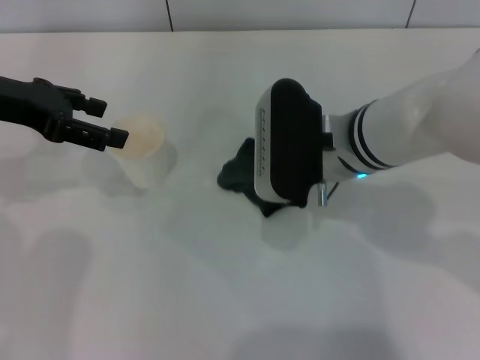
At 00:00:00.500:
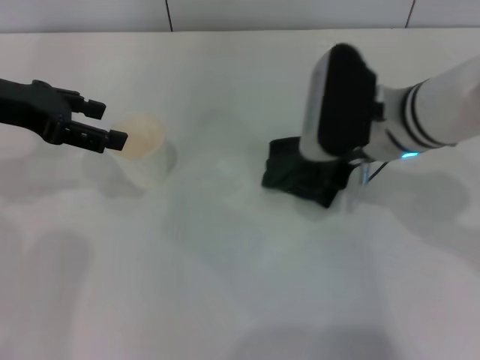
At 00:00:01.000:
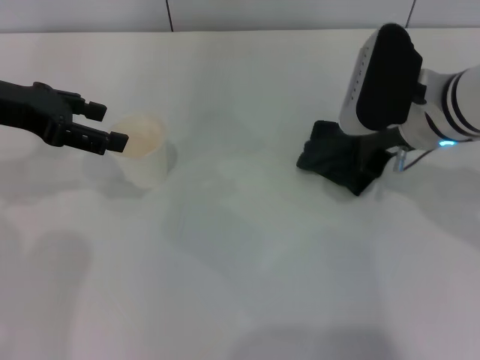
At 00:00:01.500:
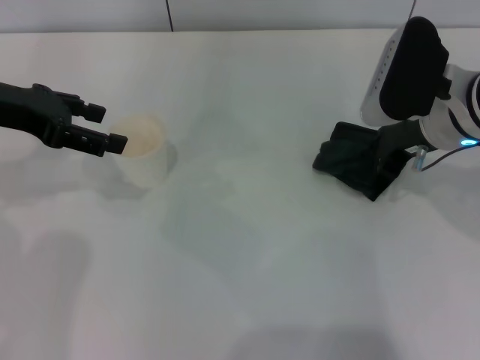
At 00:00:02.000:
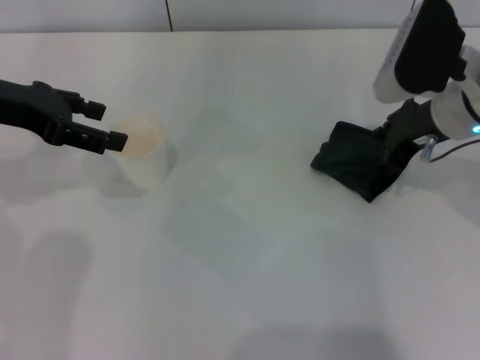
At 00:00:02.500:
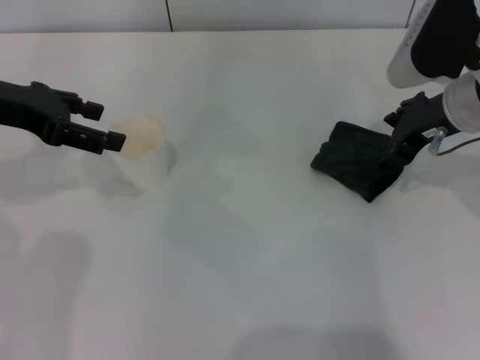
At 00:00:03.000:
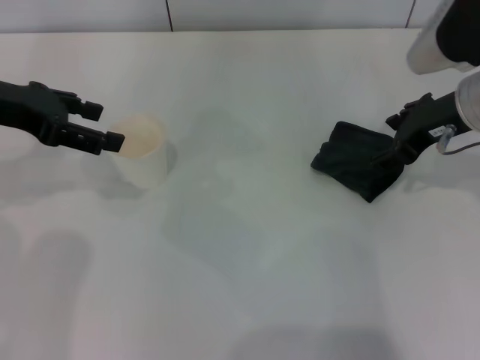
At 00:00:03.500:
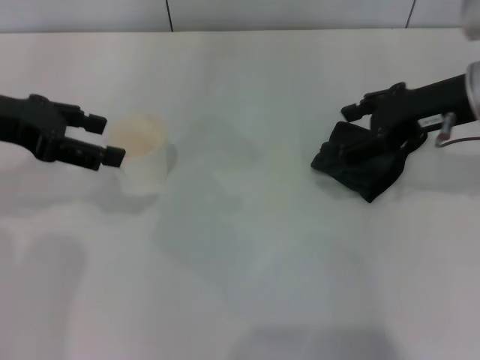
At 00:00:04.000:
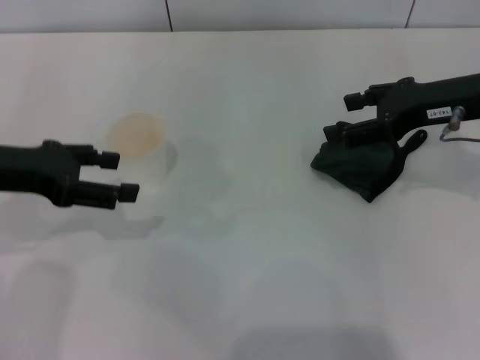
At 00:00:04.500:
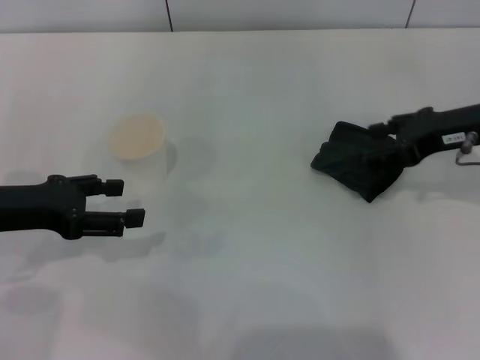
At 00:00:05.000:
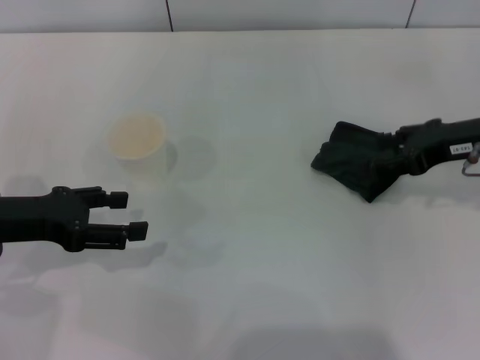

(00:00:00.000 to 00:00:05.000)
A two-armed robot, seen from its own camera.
Step, 00:00:02.000 - 00:00:04.000: Place the rag on the table with the right gripper.
00:00:00.000 - 00:00:02.500: The right gripper is displaced to the right by some 10 cm, and opens up.
00:00:02.500 - 00:00:05.000: The right gripper moves to the right, approximately 5 cm, while the left gripper moves downward and backward, about 10 cm.
